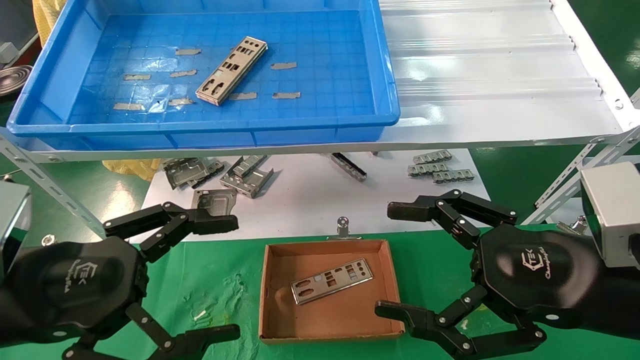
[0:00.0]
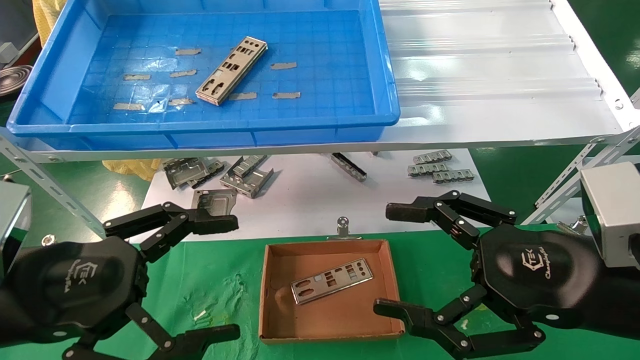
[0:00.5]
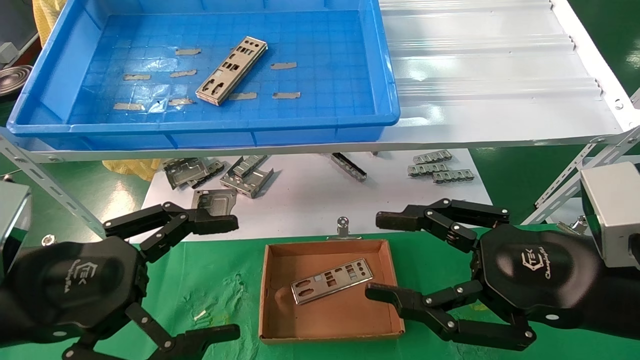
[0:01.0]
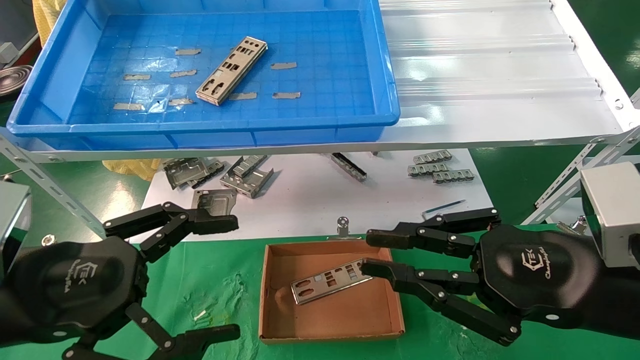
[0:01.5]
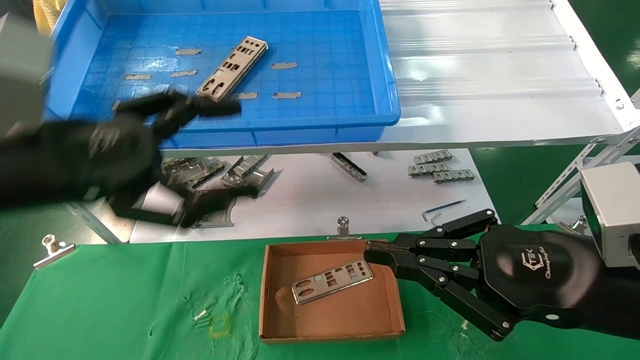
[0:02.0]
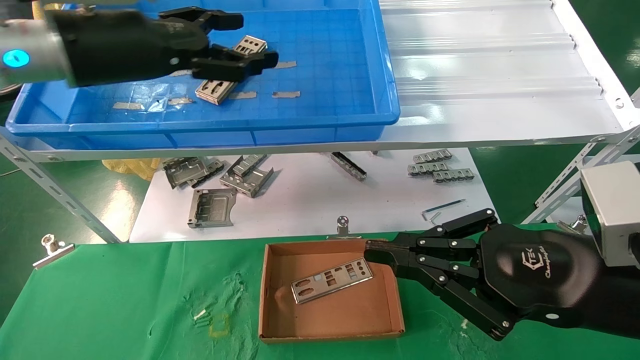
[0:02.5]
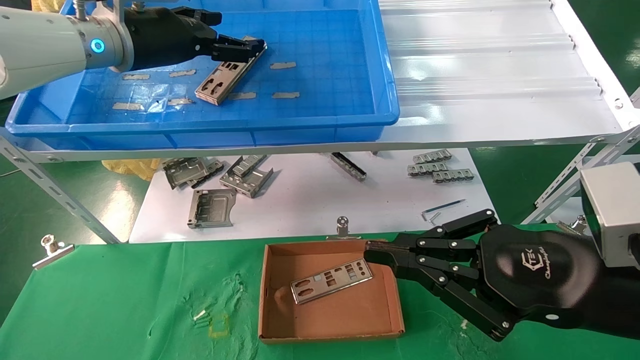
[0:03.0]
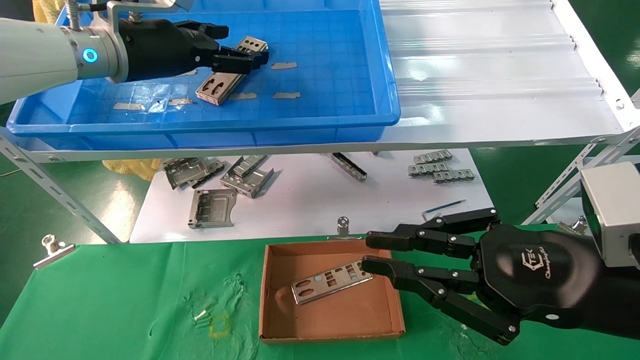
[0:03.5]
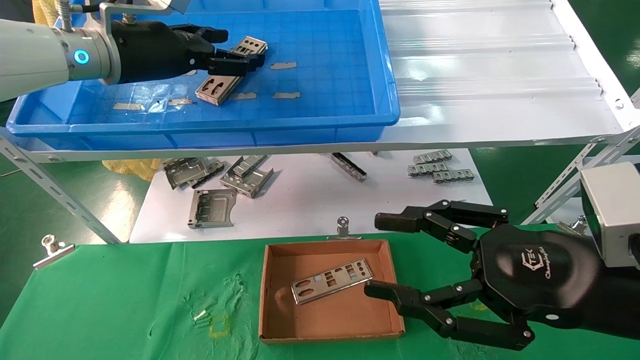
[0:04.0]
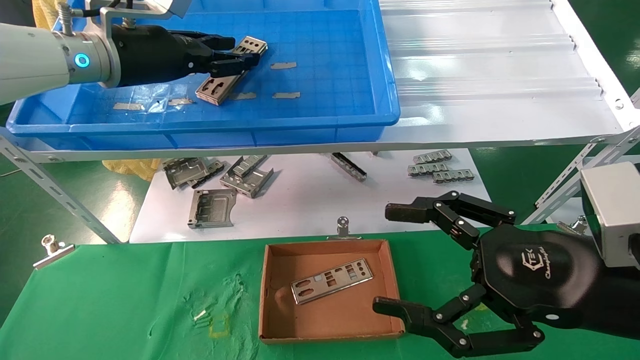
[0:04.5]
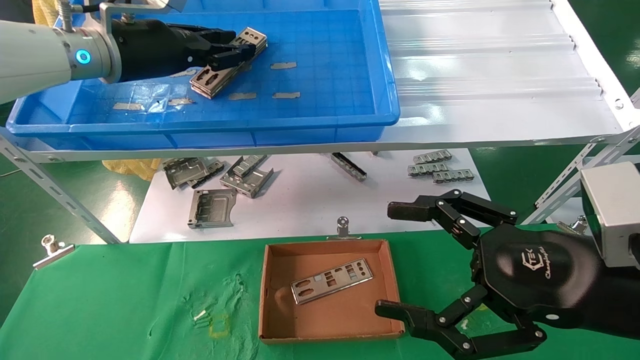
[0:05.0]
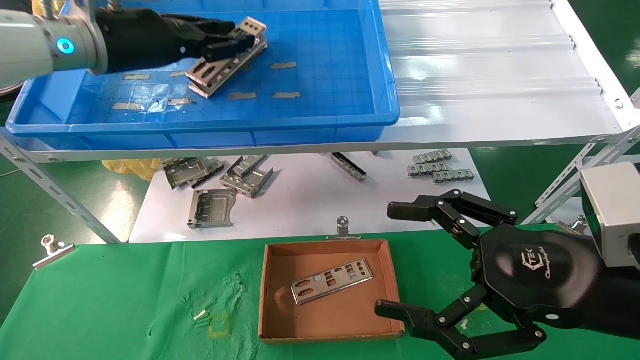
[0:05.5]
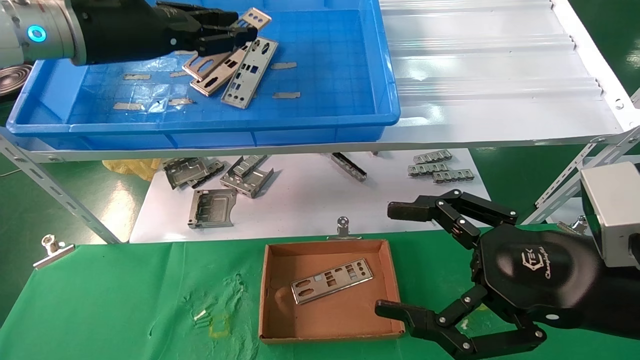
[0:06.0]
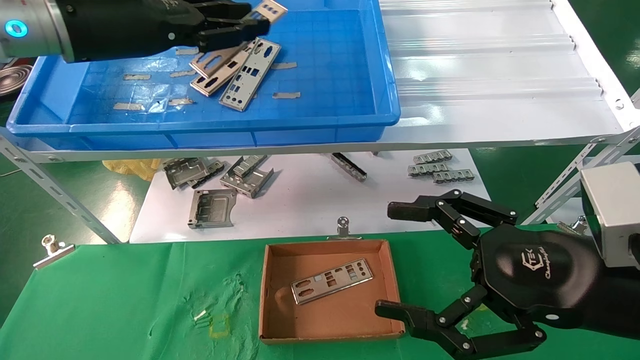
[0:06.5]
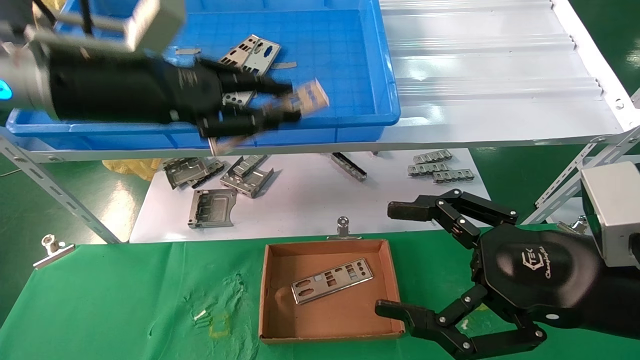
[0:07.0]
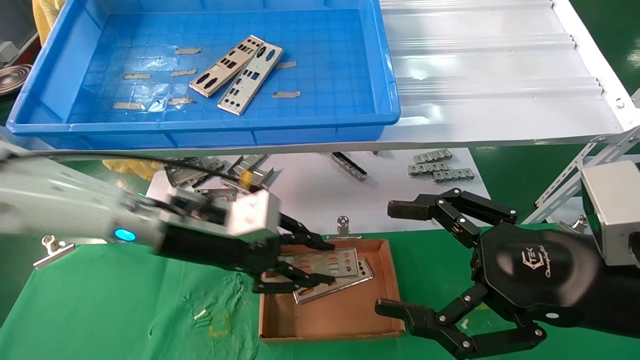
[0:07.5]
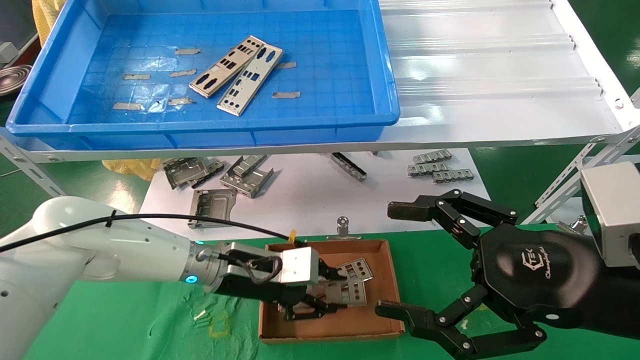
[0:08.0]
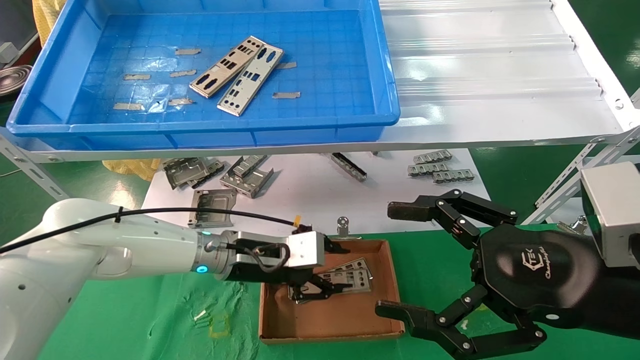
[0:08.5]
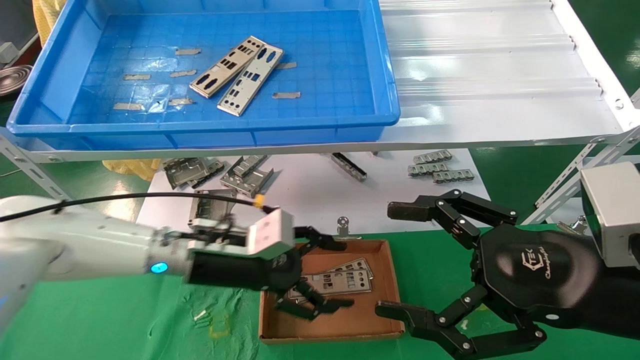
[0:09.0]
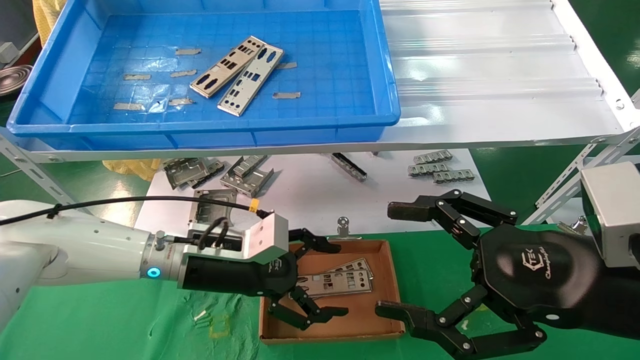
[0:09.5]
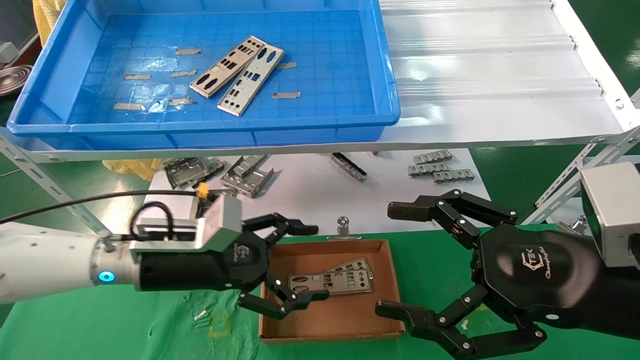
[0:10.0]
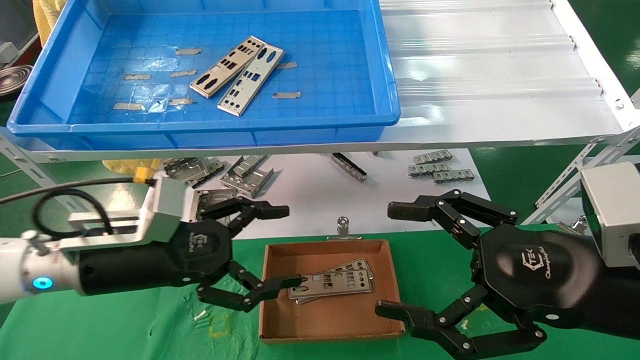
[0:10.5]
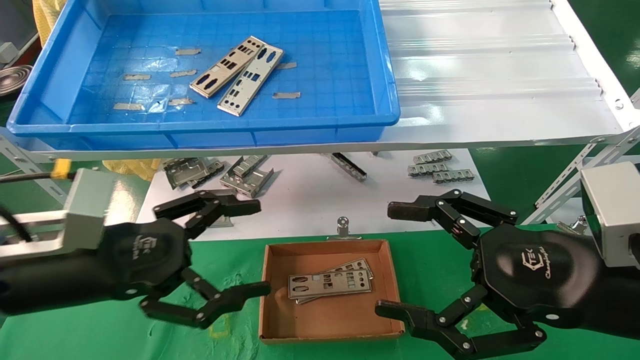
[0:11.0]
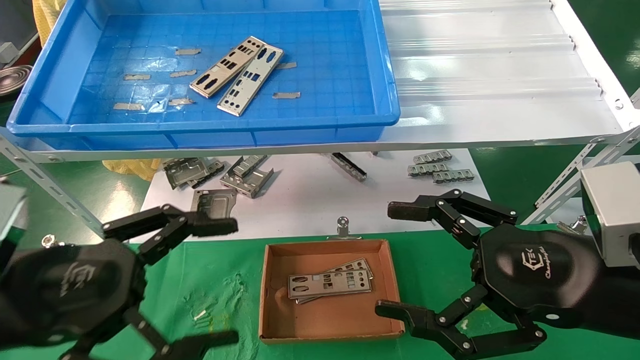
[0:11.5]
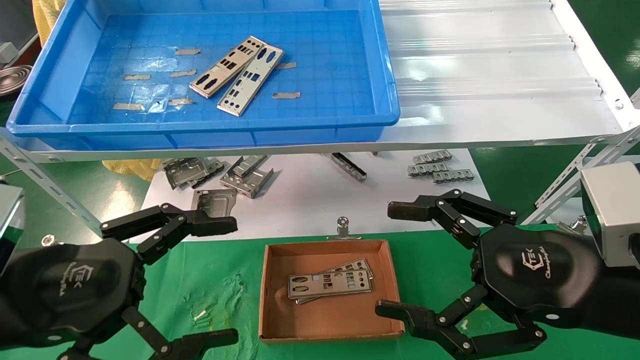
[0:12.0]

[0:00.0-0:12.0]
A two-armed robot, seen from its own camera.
Task of the whole recording: pick up the parts on the tray and put them in the cardboard box.
Step, 0:02.0 to 0:04.5: Pick up the IO bracket from the container box.
Step, 0:05.0 to 0:08.0: Place the IO bracket into the ingredient slot.
0:00.0 to 0:02.0: The left gripper heads upward and forward, covering about 10 cm. Meanwhile the right gripper closes its fingers.
0:02.0 to 0:04.0: The right gripper opens up, while the left gripper travels forward and upward by about 20 cm.
0:04.0 to 0:06.0: The right gripper opens its fingers. Meanwhile the left gripper closes.
0:06.0 to 0:08.0: The left gripper is displaced downward and to the right by some 30 cm.
0:08.0 to 0:10.0: The left gripper heads to the left and backward, covering approximately 10 cm, and opens its fingers.
0:10.0 to 0:12.0: The left gripper is displaced backward and to the left by roughly 20 cm.

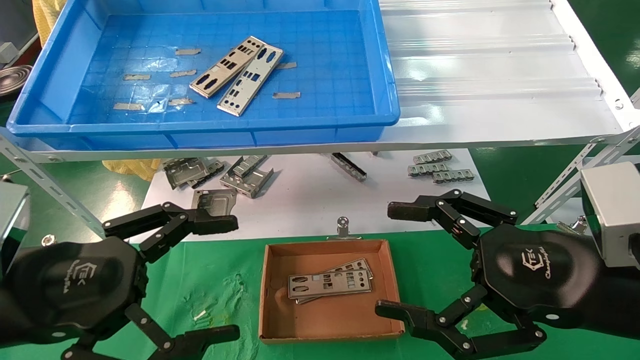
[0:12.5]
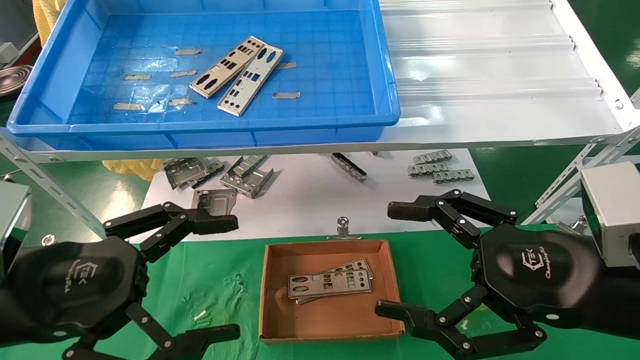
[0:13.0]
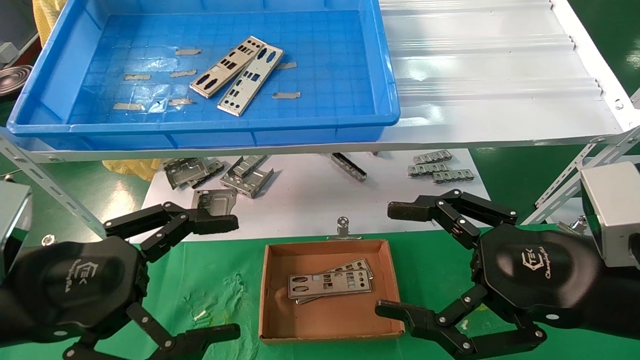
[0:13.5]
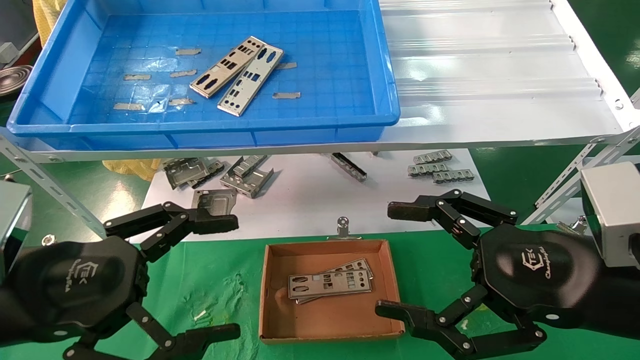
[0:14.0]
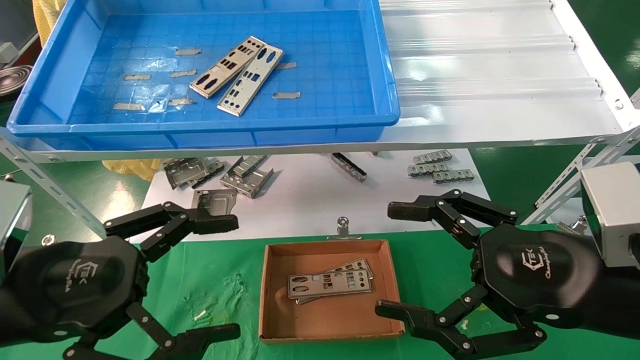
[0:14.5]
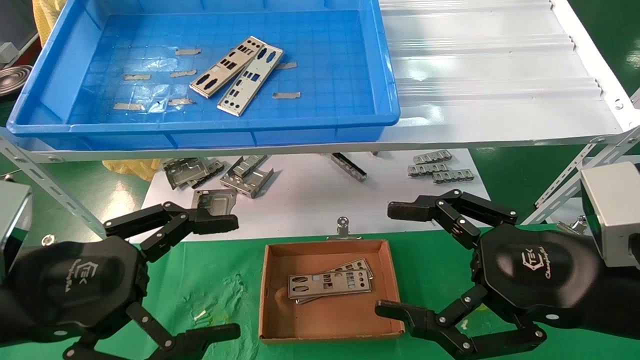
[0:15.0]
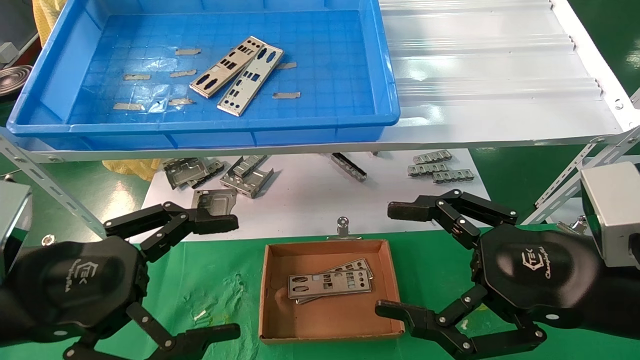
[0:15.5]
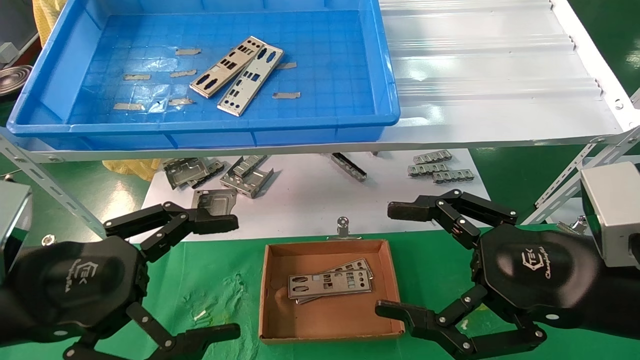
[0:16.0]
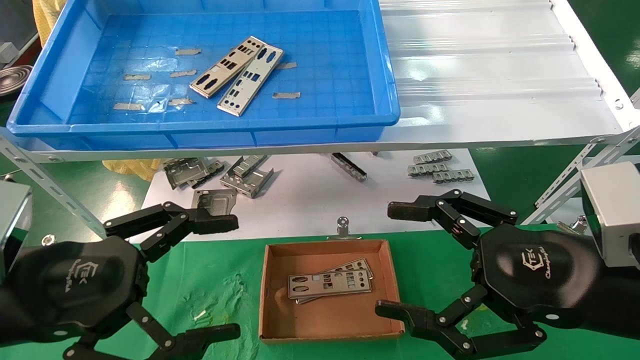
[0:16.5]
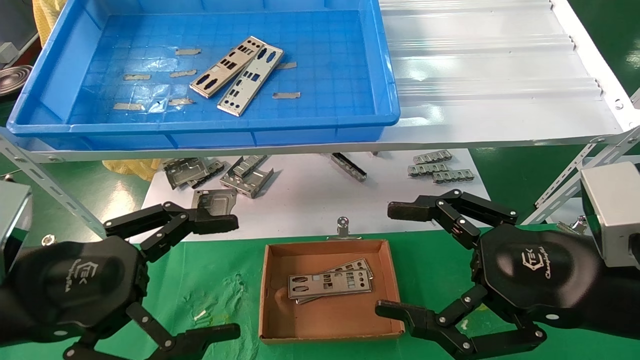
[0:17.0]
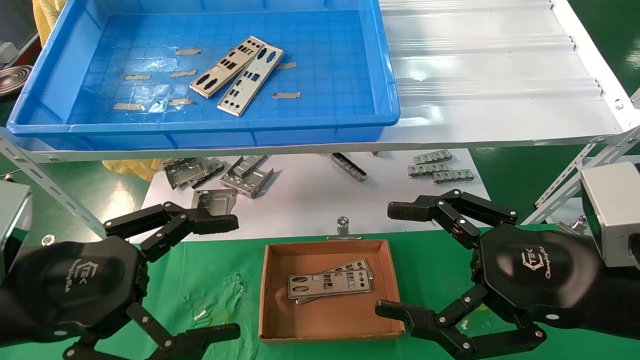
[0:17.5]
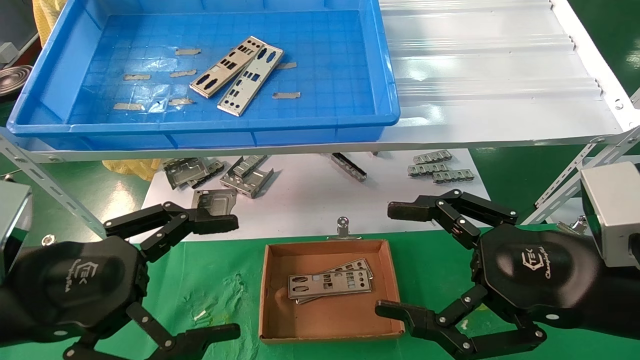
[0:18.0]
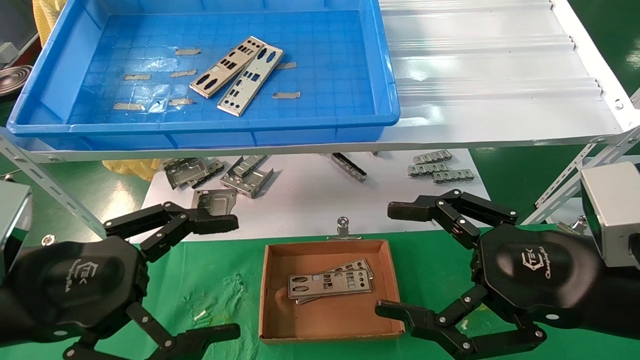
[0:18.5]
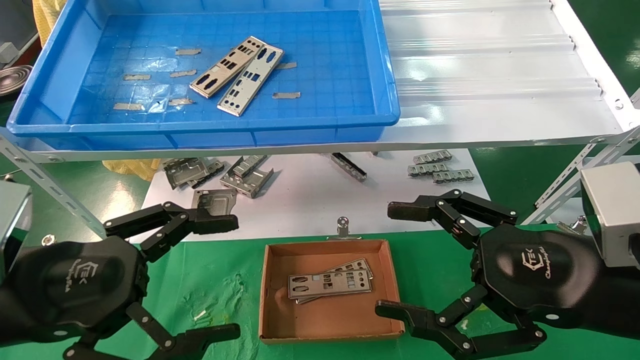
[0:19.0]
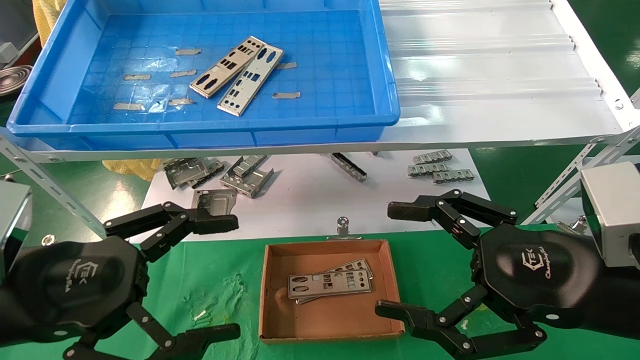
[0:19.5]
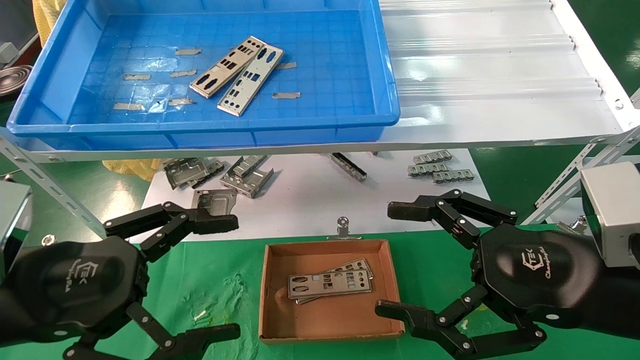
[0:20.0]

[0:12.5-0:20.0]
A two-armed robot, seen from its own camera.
Task of the whole recording: pick up the parts on the tray and put them in the cardboard box.
0:12.5 to 0:20.0: Both grippers stay about where they are.
